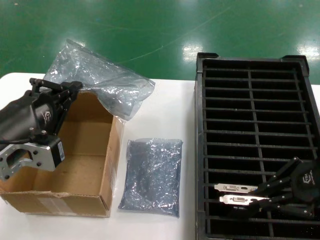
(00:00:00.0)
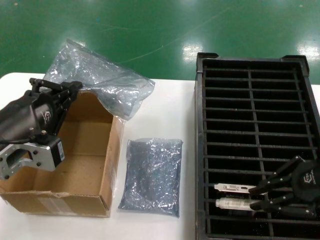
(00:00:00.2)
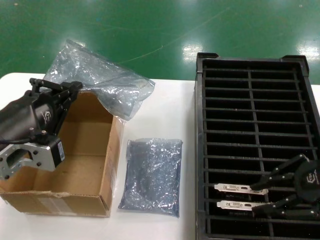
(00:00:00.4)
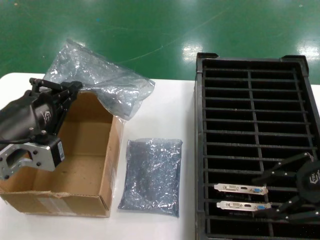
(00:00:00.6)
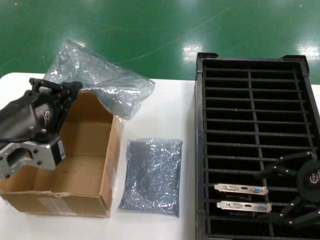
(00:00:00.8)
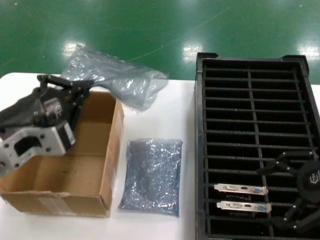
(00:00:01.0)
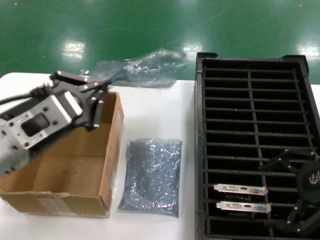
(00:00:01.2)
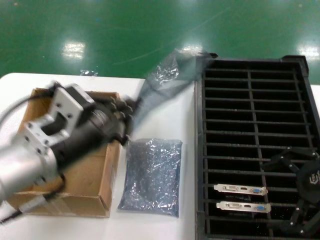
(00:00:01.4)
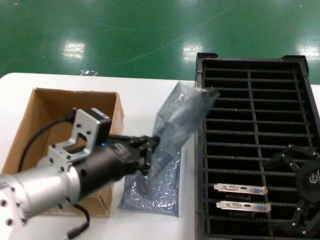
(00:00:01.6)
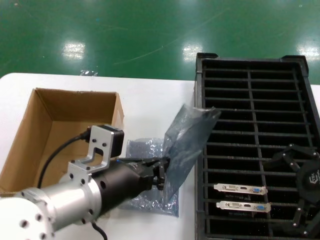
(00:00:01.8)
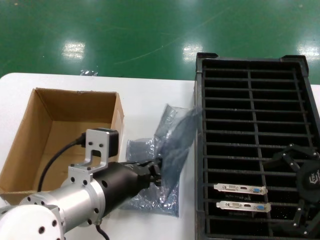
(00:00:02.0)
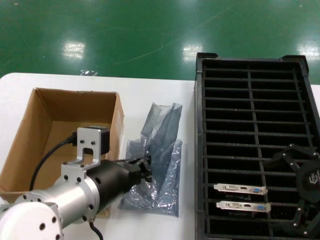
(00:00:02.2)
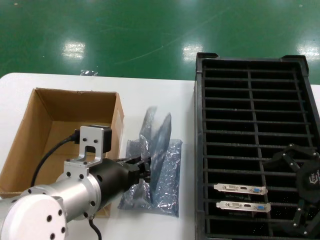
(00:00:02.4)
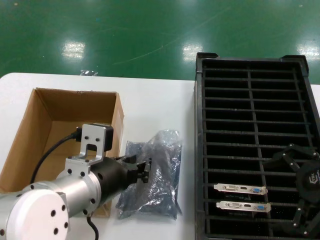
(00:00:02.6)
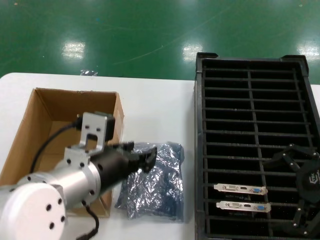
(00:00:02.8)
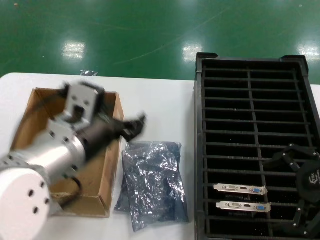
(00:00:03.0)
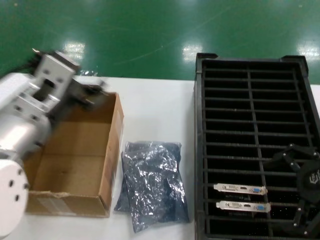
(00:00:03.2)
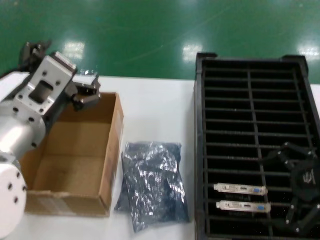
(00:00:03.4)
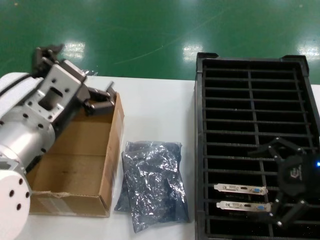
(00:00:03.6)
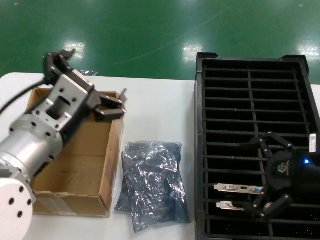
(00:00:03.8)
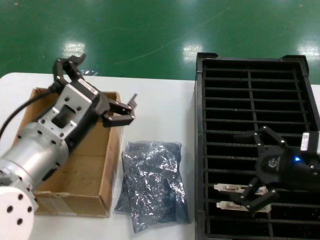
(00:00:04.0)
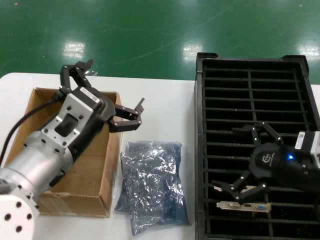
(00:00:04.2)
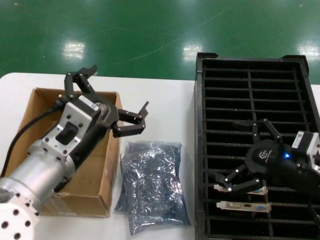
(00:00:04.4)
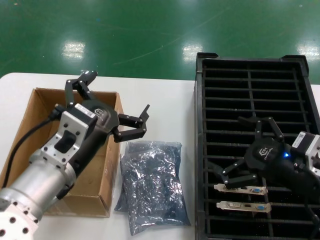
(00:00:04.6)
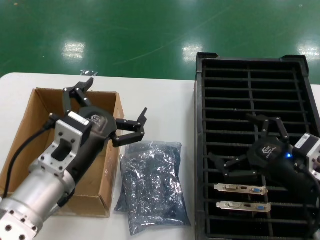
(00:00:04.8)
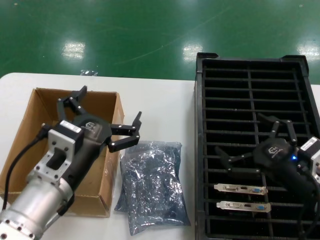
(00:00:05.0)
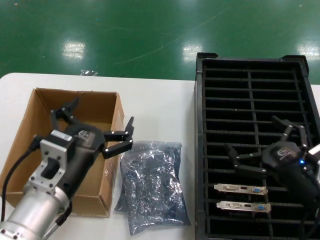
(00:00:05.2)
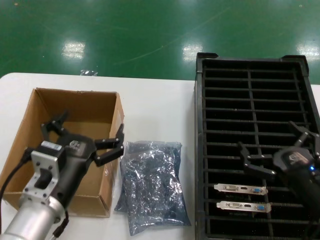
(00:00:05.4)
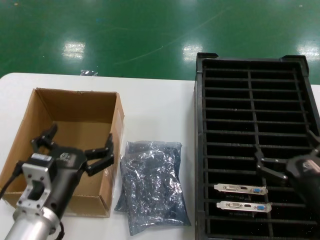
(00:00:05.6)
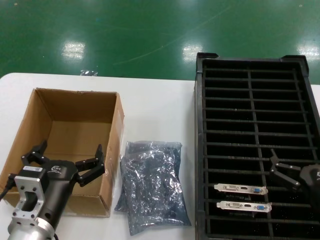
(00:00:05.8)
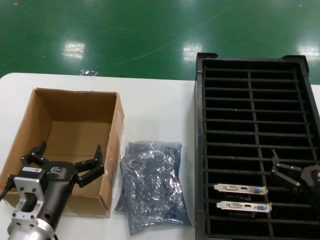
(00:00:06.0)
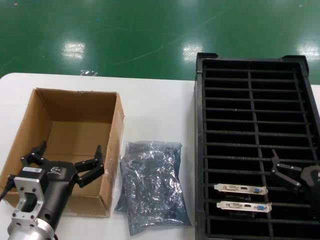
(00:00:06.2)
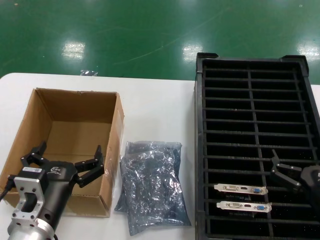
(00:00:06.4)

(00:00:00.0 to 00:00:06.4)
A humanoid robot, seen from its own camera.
Task of the whole recording: take out graphics card from box remove packaging put into black container.
Step, 00:00:00.6 - 00:00:02.6: Place the down the bag.
00:00:00.0 - 00:00:01.6: The left hand travels to the right by about 10 cm.
00:00:03.2 - 00:00:04.8: The left hand heads downward, covering about 10 cm, while the right hand is displaced downward and to the left by about 15 cm.
00:00:04.8 - 00:00:06.4: The right hand shifts about 10 cm downward and backward. Meanwhile the left hand is displaced downward by roughly 10 cm.
